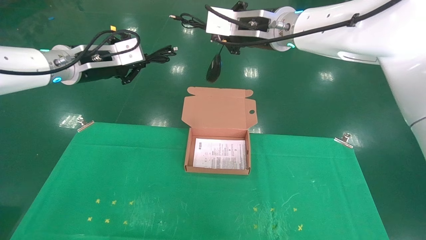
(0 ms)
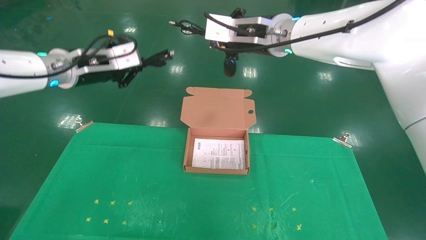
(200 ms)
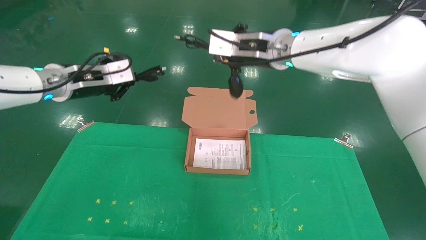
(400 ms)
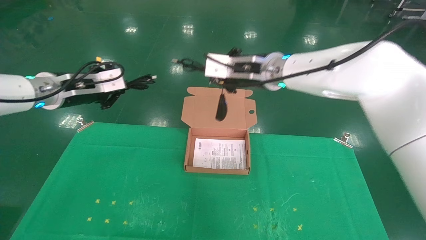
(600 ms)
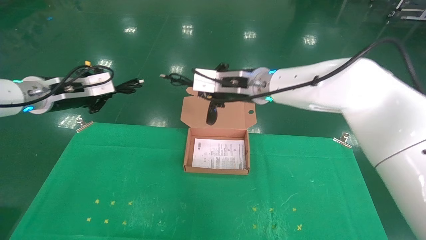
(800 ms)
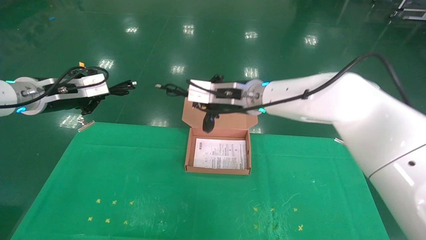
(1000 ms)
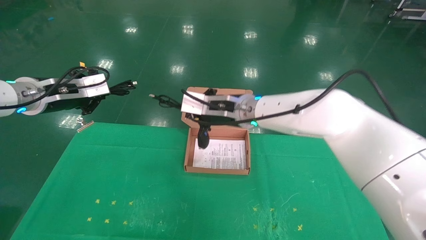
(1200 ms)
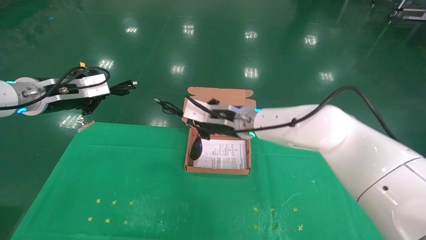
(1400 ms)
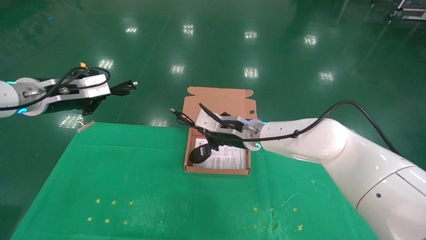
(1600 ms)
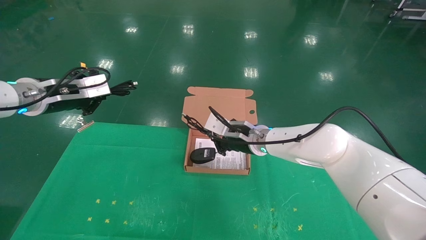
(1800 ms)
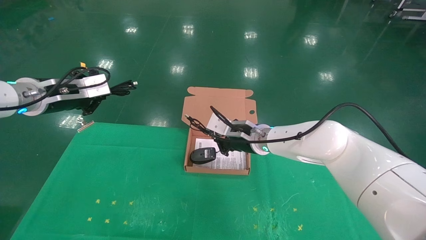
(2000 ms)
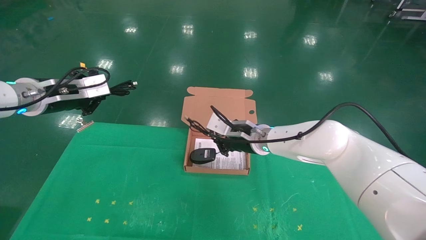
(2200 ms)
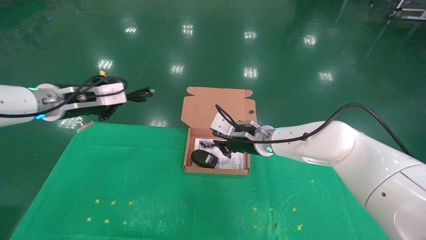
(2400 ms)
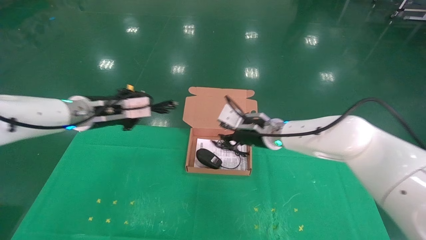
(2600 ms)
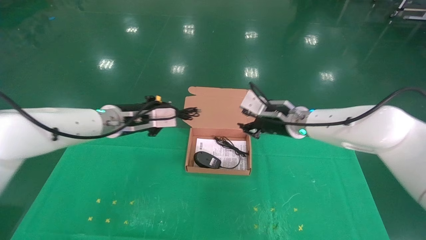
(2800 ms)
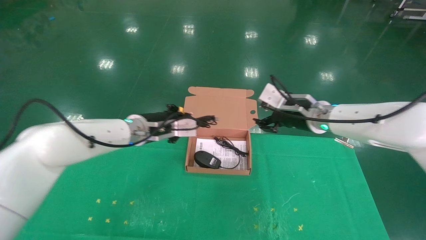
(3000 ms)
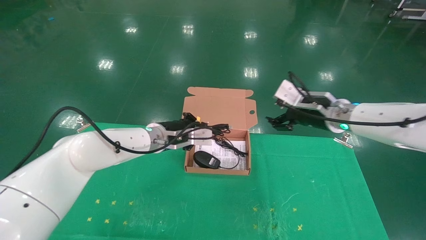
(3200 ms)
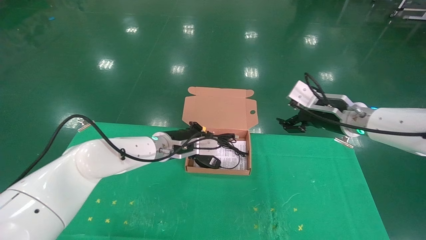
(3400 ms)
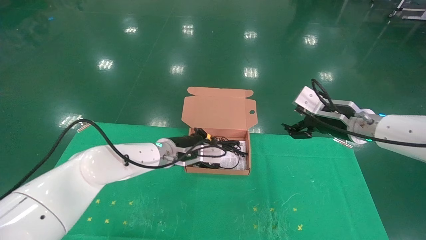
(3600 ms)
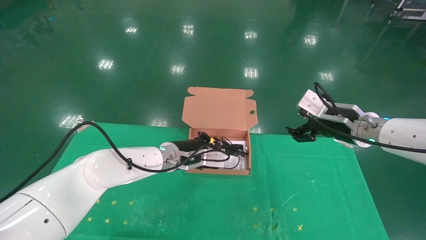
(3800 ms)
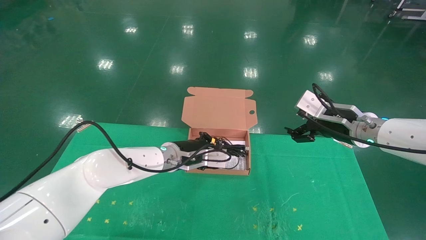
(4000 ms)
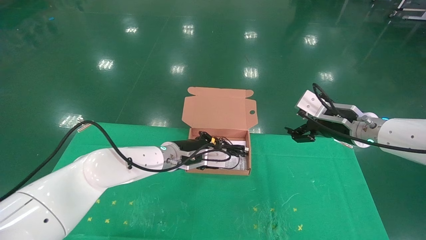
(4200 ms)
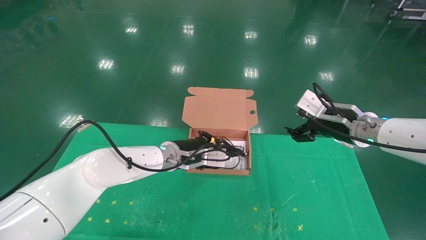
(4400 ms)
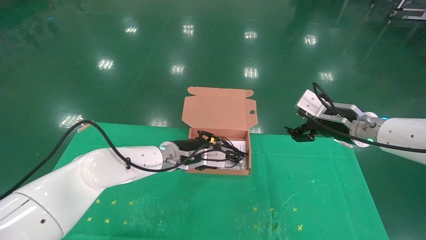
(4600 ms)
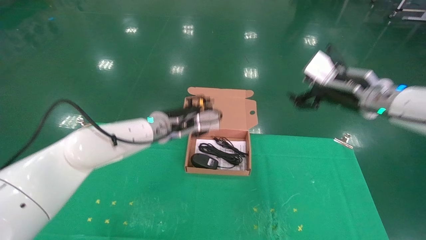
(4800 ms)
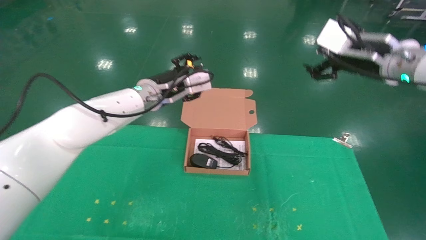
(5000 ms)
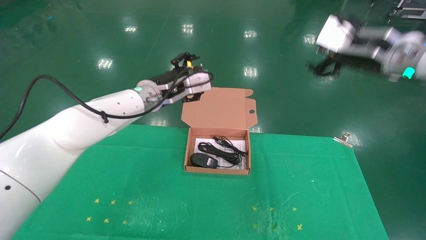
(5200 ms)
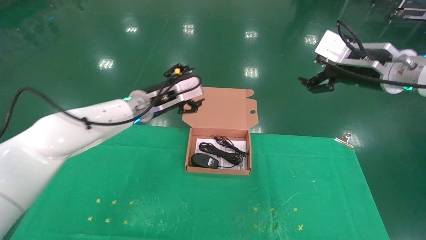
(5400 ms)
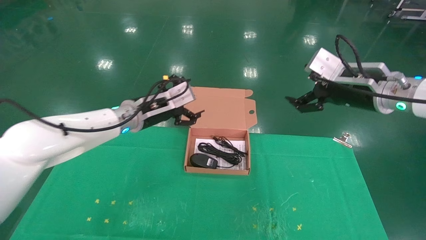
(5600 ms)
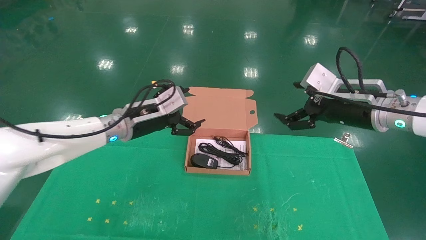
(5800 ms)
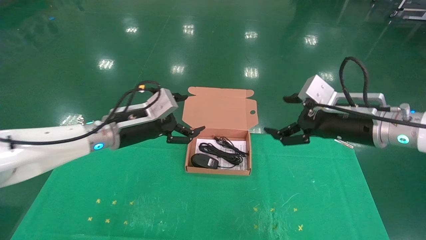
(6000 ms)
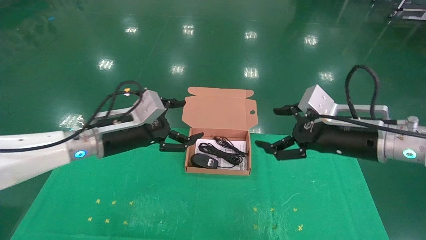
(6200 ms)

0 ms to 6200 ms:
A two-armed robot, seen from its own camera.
Task of the whole recording: grasp data cable left put into box grasp mouse right put into box.
Step, 0 ms to 4000 ms: Place the mouse and power cord into the box.
0 ms to 1600 ms: The left gripper travels to the left and downward by some 10 cm; the right gripper travels downward by roughly 20 cm.
1600 ms to 3200 ms: The right gripper heads to the right, covering about 20 cm, and opens up, while the left gripper goes approximately 25 cm to the right and downward.
3200 ms to 4600 ms: The right gripper moves roughly 5 cm.
4600 ms to 6200 ms: The right gripper travels backward by roughly 10 cm, and goes upward and returns, some 10 cm each way; the left gripper is displaced to the left, backward and upward by roughly 15 cm, and opens up.
